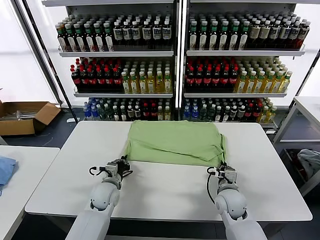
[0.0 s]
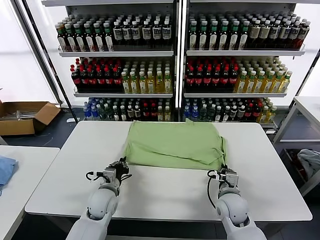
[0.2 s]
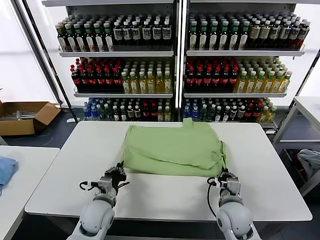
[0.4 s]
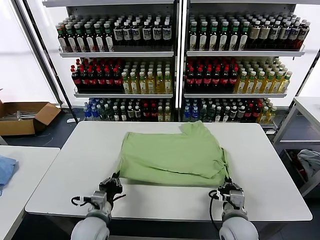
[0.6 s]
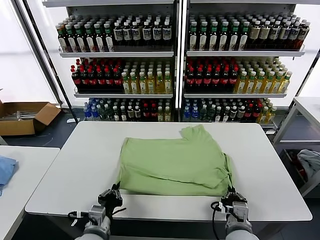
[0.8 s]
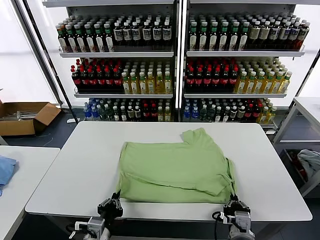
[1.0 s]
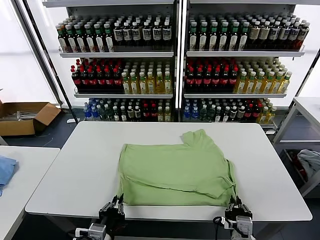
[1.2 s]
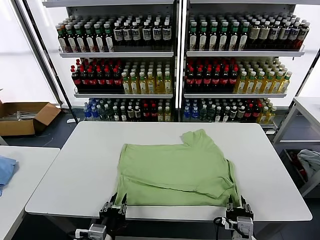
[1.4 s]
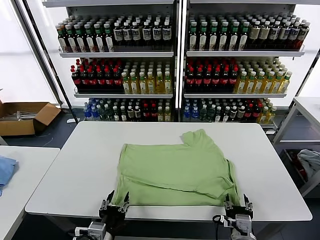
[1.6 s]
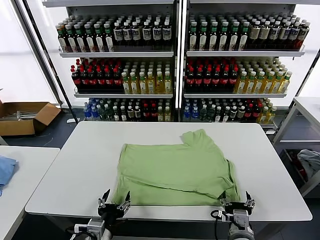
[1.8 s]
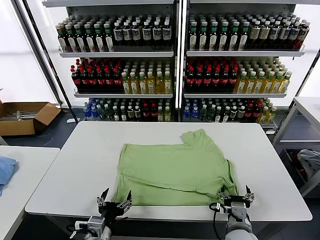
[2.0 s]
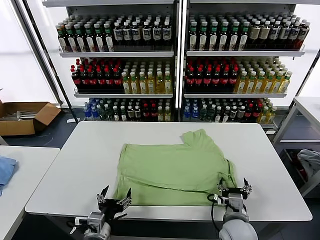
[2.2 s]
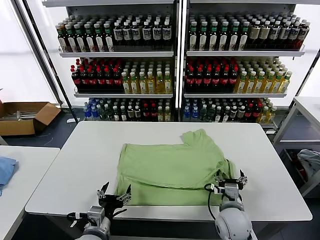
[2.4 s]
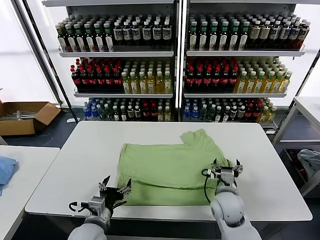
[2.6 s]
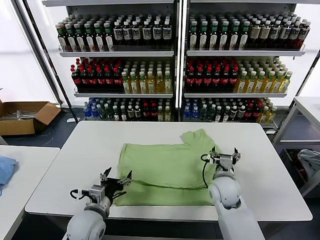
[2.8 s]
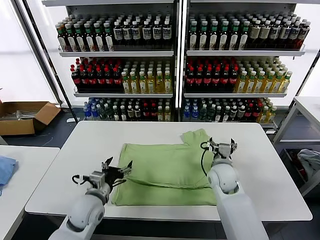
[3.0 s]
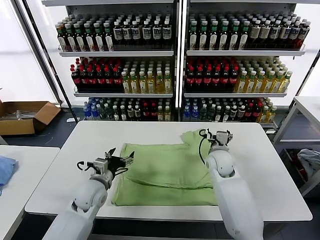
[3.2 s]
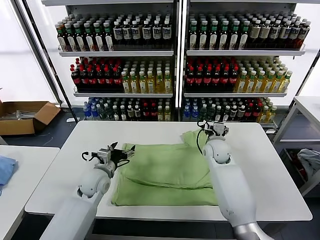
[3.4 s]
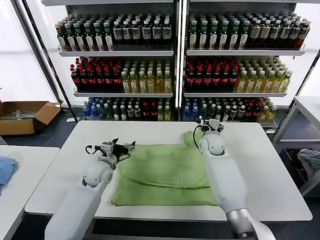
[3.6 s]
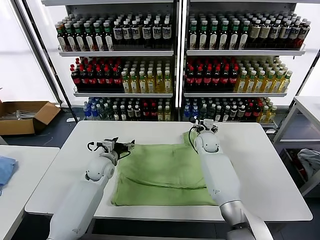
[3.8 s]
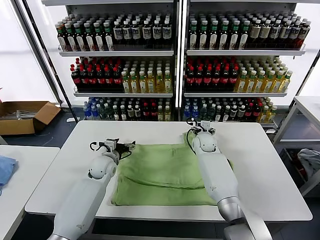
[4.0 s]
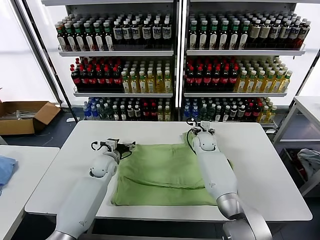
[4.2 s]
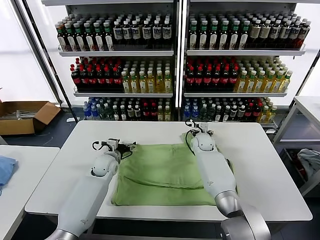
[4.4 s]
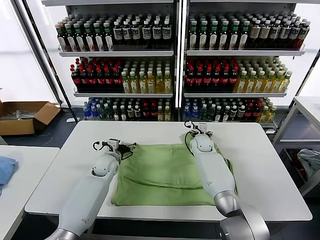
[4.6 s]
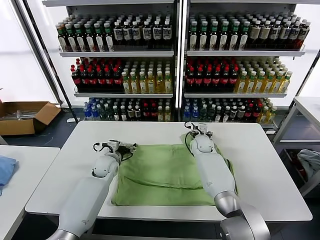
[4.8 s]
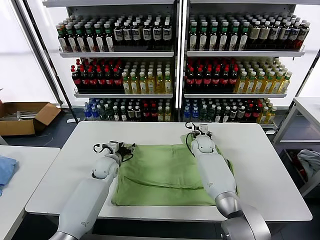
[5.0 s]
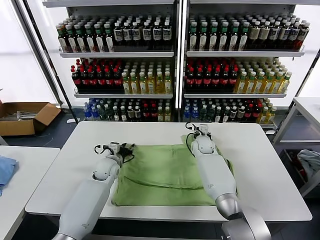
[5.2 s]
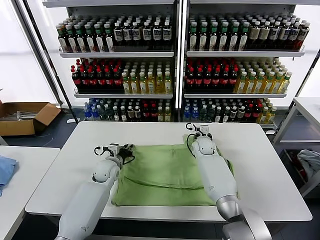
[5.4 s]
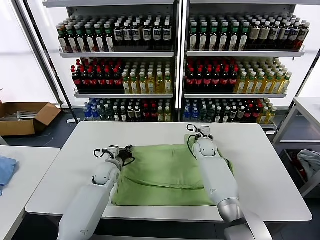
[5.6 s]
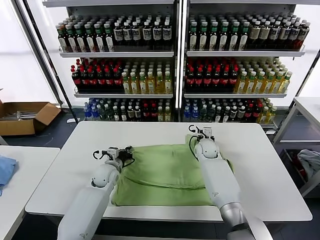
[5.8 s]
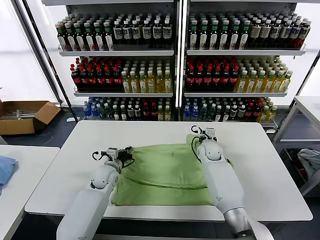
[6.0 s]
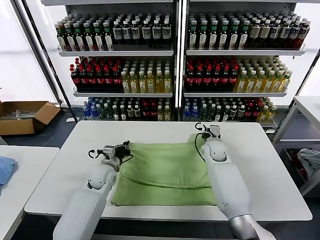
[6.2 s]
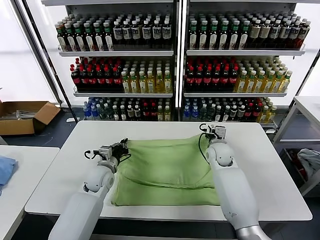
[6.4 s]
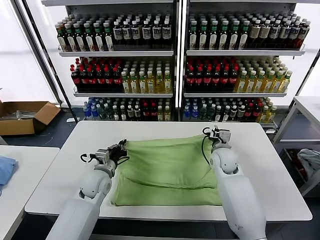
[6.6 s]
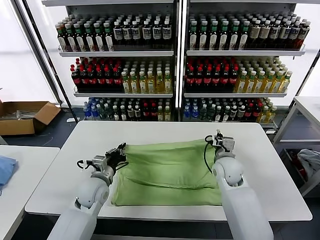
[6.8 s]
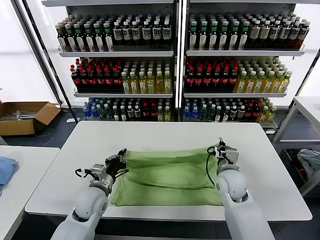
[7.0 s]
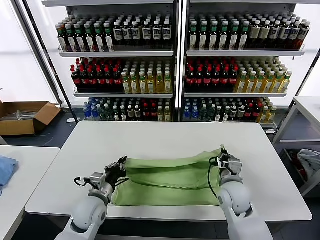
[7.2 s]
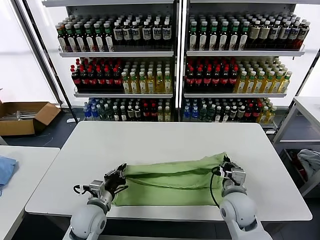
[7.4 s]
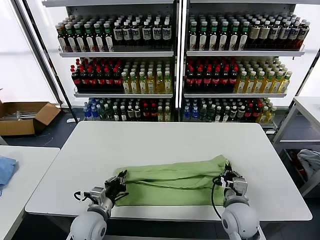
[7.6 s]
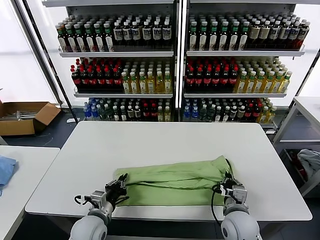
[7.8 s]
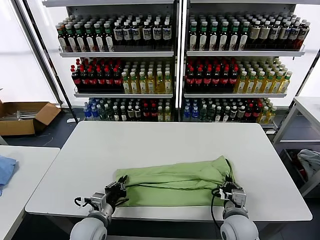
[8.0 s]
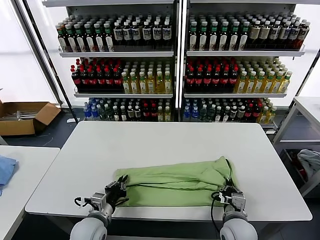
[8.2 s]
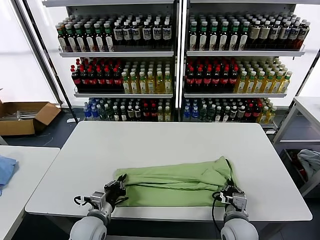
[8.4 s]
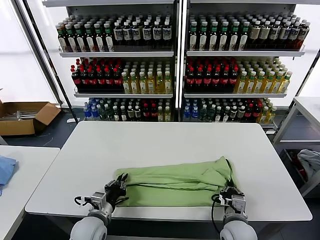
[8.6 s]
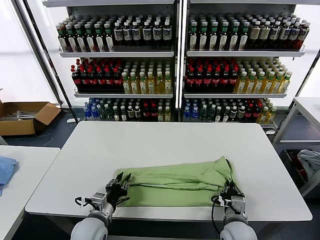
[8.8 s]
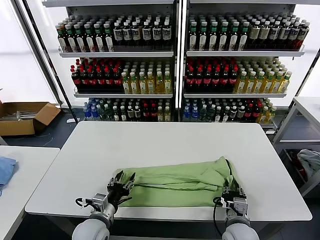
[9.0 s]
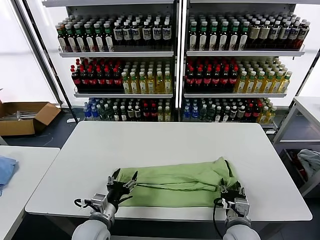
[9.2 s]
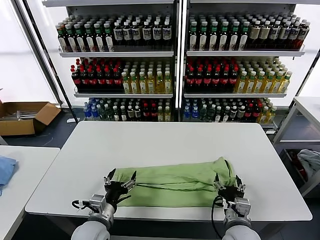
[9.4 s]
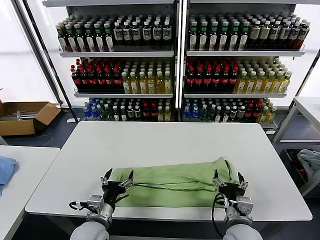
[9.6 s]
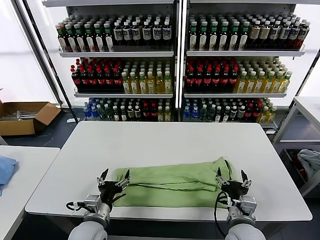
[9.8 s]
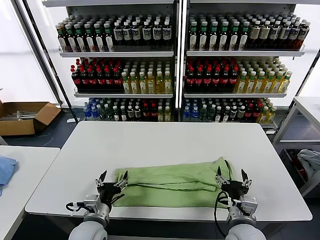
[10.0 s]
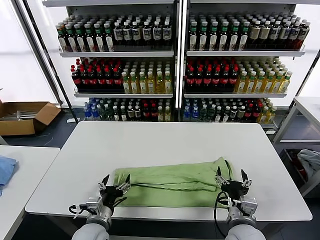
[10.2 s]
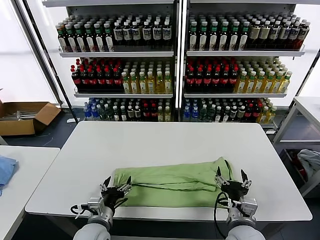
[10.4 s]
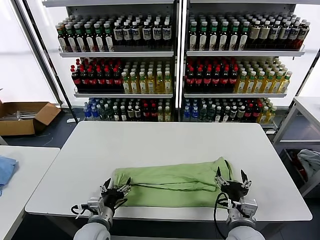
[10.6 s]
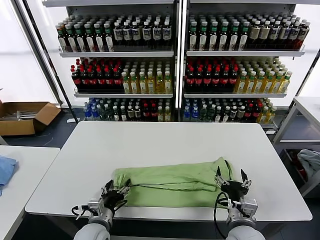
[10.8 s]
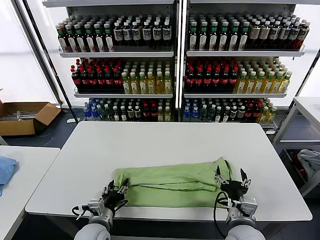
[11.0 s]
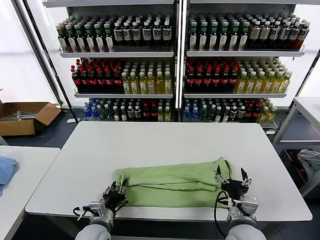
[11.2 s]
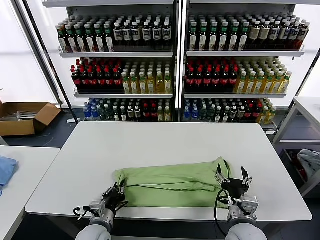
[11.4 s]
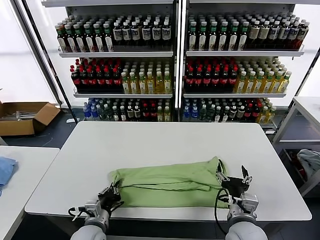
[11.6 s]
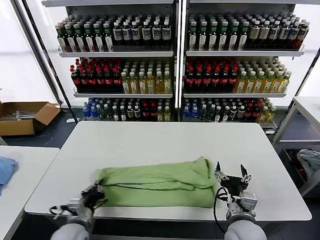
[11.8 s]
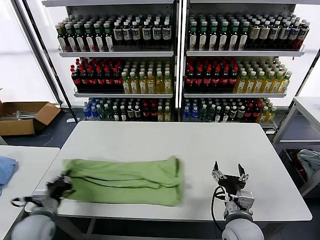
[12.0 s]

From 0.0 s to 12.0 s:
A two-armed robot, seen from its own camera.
Task of the whole recording: fold and organize the clothes.
Step, from 1.6 s to 5.6 s: use both grippers simultaneously to clamp the upper edge of the clothing fabric.
Step, from 5.8 s to 9.4 s: use both grippers to drag the upper edge of the fabric backward and fold it over the lower edge.
Step, from 9.6 s to 11.4 s: use the left gripper to clamp the left edge of the fabric.
From 0.0 s to 1.6 s: The grippers both shift backward by roughly 20 cm. The left gripper opens up. Meanwhile the right gripper opens.
From 1.6 s to 3.0 s: The left gripper goes approximately 15 cm forward. Meanwhile the right gripper travels forward by roughly 25 cm.
From 3.0 s to 4.4 s: Both grippers move forward, some 15 cm.
From 4.4 s to 6.0 s: The right gripper shifts by approximately 5 cm, and closes its fingers. The left gripper closes.
From 6.0 s to 7.6 s: The left gripper shifts some 20 cm backward. The right gripper moves backward, about 25 cm.
From 7.6 s to 9.0 s: The right gripper moves about 5 cm, and opens its fingers. The left gripper opens.
From 9.0 s to 10.4 s: The left gripper opens up; the right gripper travels upward by some 5 cm, and opens.
From 10.4 s to 12.0 s: The left gripper heads to the left, covering approximately 15 cm, and closes up.

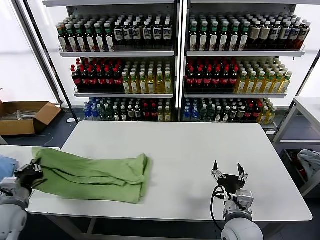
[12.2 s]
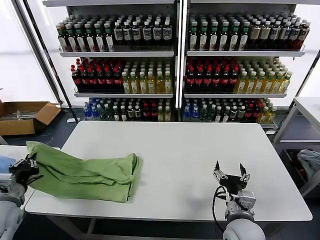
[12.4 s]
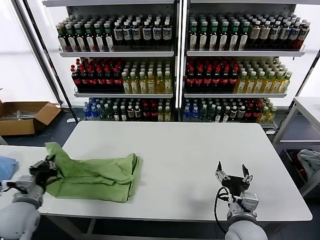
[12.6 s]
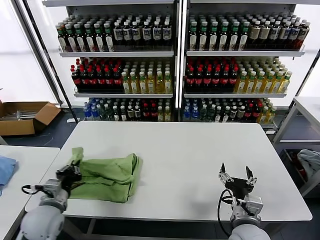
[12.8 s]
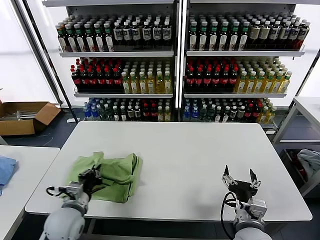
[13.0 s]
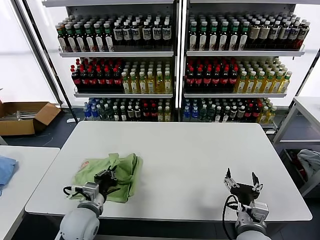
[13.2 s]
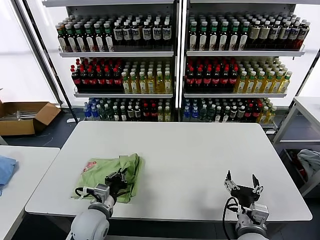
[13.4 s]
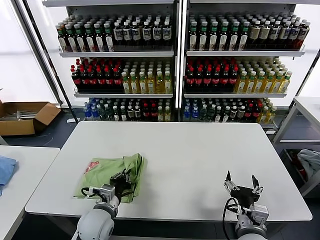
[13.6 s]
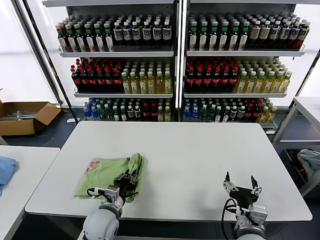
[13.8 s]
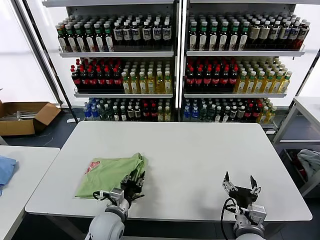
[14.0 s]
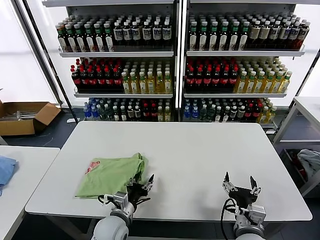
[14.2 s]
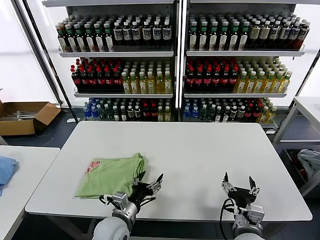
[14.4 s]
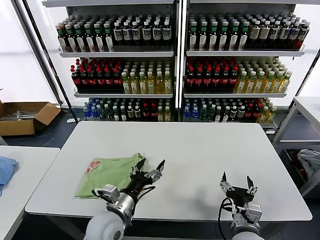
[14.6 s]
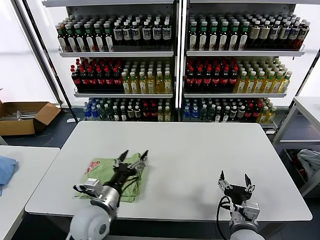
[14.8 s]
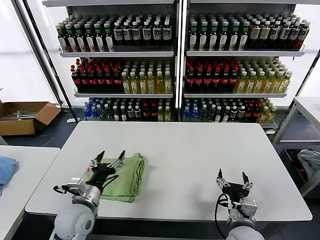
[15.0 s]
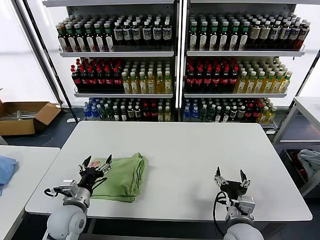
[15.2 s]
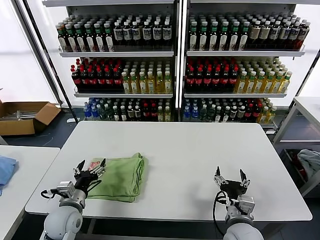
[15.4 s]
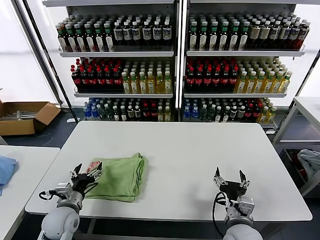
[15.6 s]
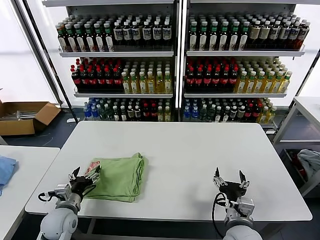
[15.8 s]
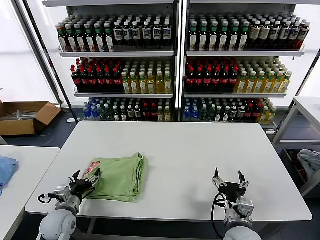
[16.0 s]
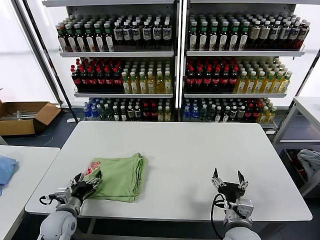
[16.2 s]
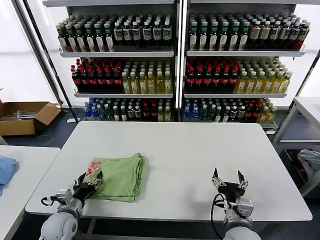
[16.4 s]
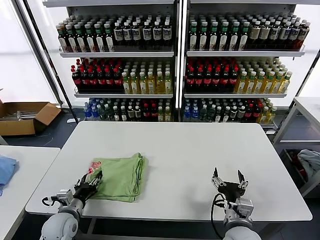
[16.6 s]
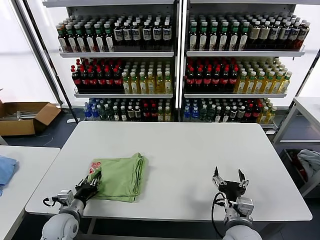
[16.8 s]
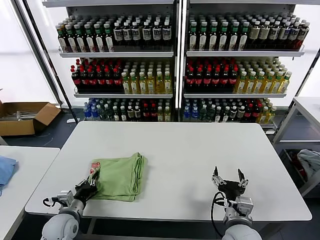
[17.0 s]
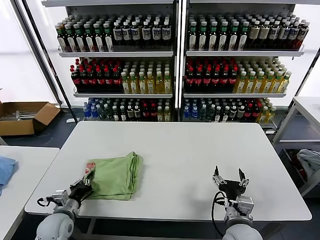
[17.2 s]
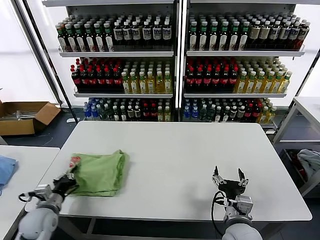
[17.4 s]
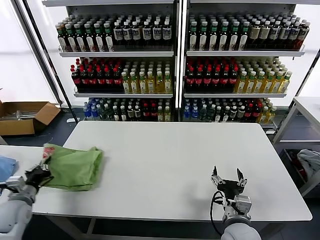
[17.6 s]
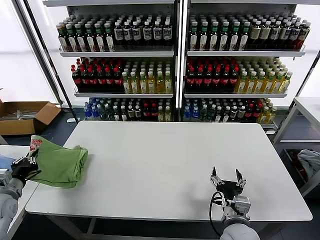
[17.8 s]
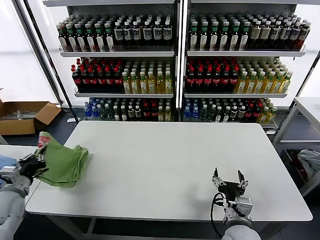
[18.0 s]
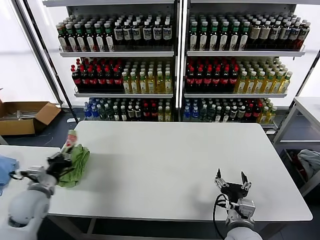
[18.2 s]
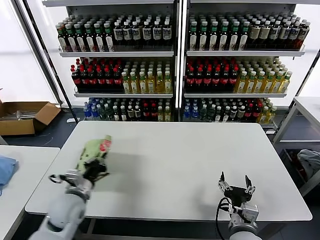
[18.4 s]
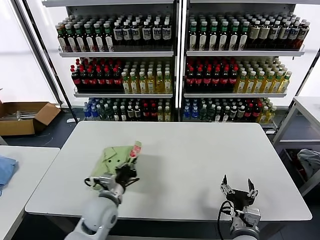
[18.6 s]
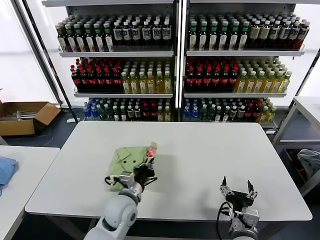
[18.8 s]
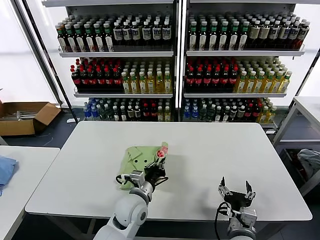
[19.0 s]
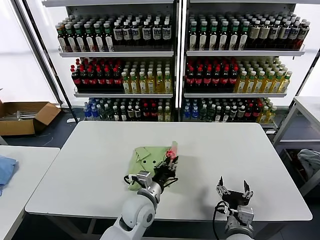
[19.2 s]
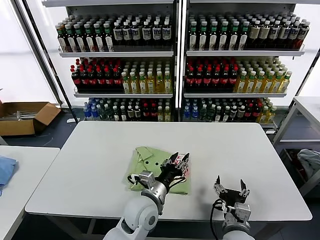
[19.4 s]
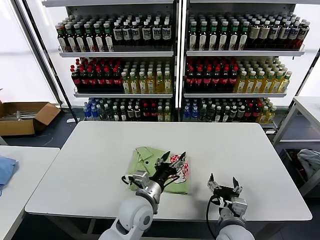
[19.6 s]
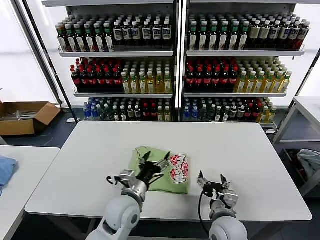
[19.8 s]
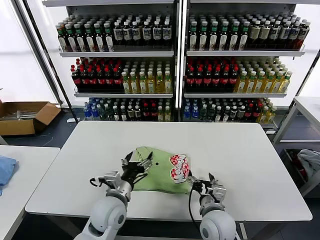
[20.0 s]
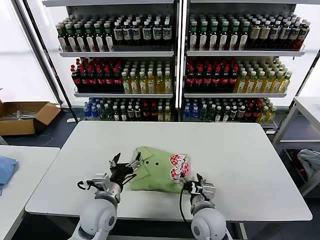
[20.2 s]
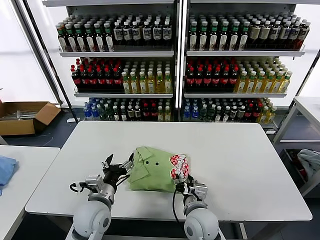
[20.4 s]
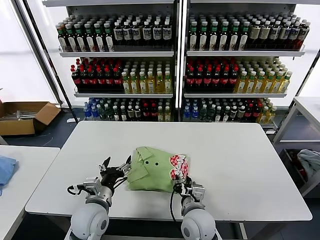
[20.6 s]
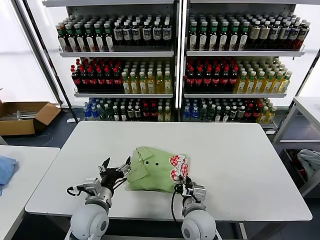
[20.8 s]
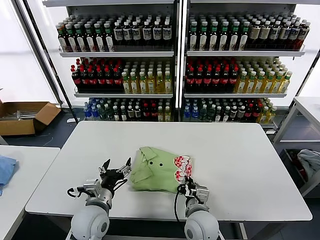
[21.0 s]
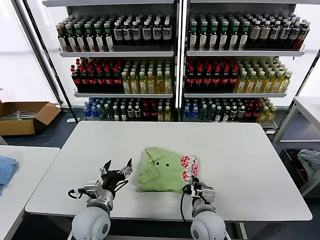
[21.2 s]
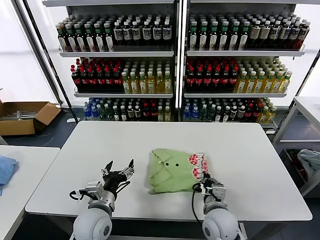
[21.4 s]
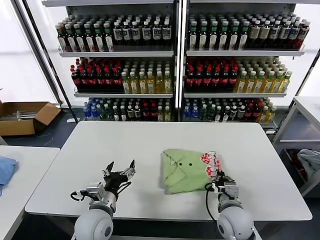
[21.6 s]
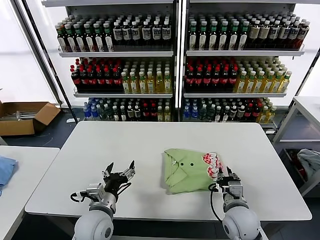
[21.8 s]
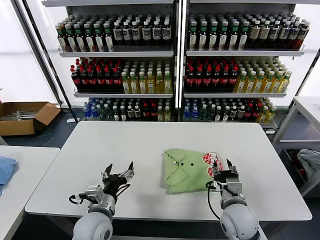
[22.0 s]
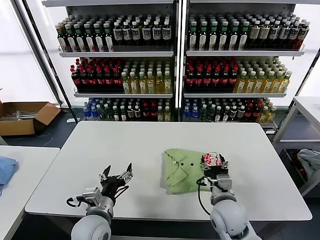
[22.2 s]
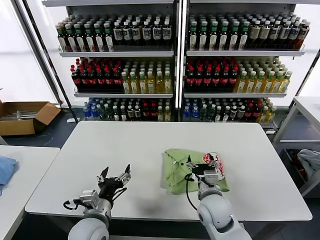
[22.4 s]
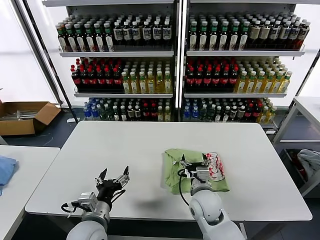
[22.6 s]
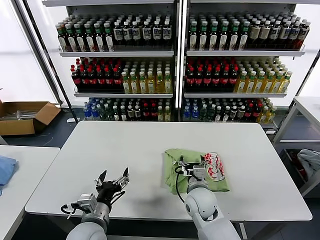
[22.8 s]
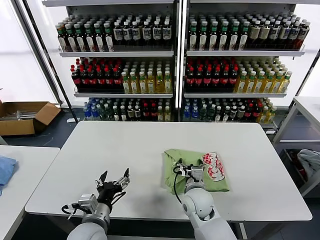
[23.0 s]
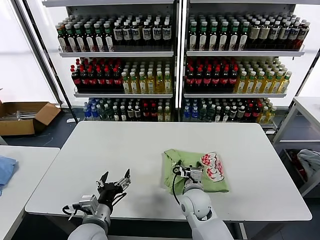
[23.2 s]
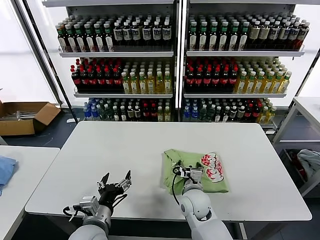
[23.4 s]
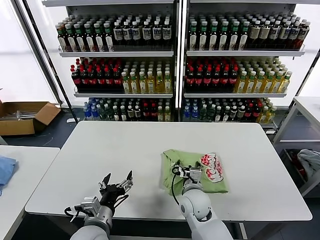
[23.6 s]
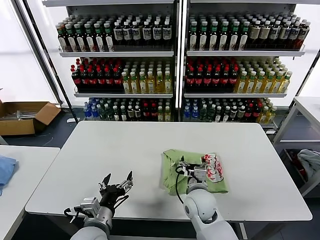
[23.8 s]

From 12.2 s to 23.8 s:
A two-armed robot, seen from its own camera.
Task of the whole recording: fold and organize the clothes.
Step, from 12.2 s to 14.2 s: use the left gripper to drag the left edge of the fabric to the left and folds it over the right edge.
Step, from 14.6 s to 19.4 s: Flip the folded clothes over with left gripper.
From 12.2 s to 13.6 s: The left gripper shifts approximately 25 cm to the right.
From 13.6 s to 15.0 s: The left gripper ends up roughly 5 cm from where it was, and opens its fingers.
From 15.0 s to 16.6 s: The left gripper goes roughly 15 cm downward and to the left.
From 16.6 s to 18.0 s: The left gripper shifts some 20 cm to the left and upward, and closes up.
From 18.0 s to 19.4 s: The left gripper goes approximately 40 cm to the right, and opens its fingers.
From 19.4 s to 21.0 s: The right gripper moves to the left and forward, about 10 cm, and closes; the left gripper is displaced to the left by some 15 cm, and opens its fingers.
From 21.0 s to 22.4 s: The right gripper opens its fingers.
From 22.4 s to 23.8 s: The right gripper ends up about 5 cm from where it was.
